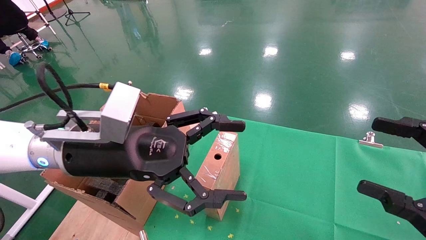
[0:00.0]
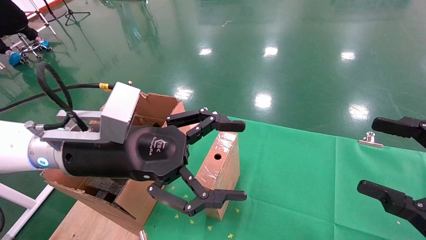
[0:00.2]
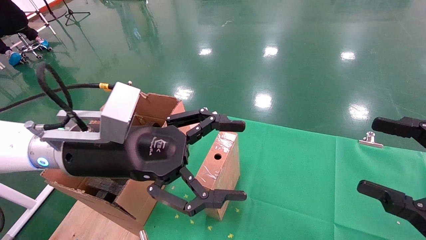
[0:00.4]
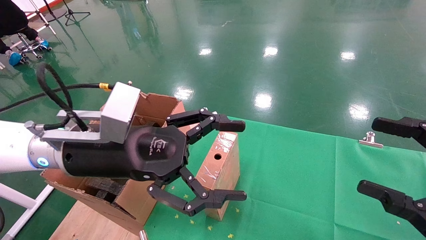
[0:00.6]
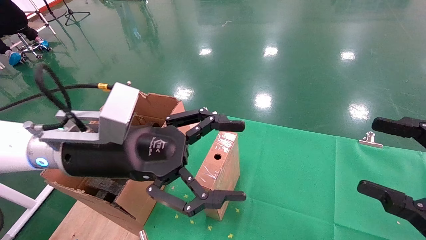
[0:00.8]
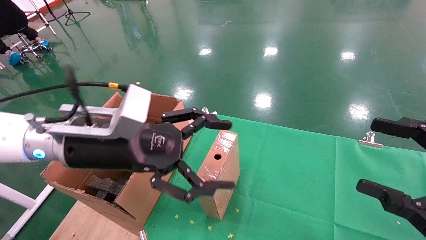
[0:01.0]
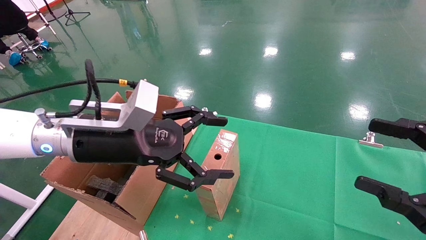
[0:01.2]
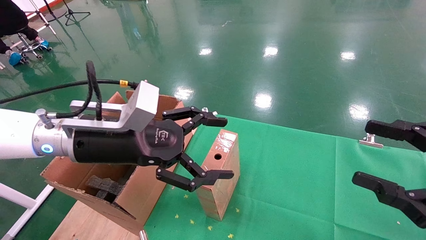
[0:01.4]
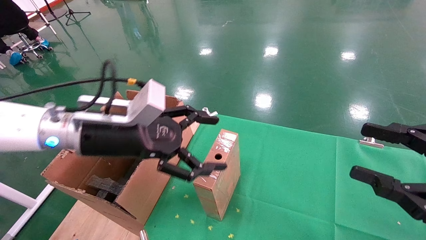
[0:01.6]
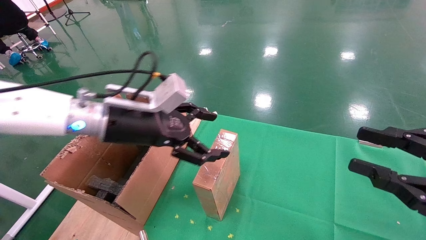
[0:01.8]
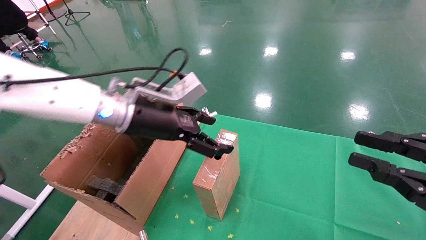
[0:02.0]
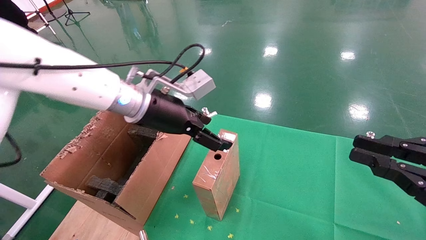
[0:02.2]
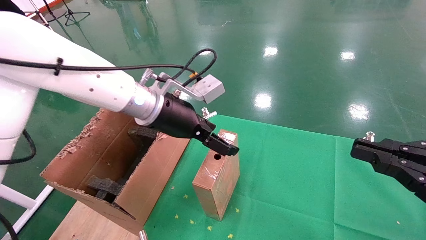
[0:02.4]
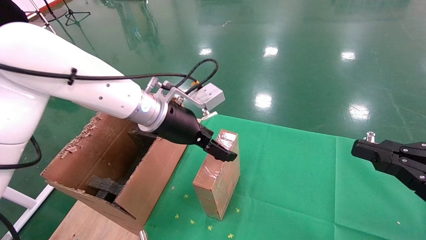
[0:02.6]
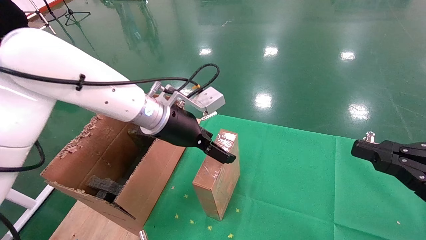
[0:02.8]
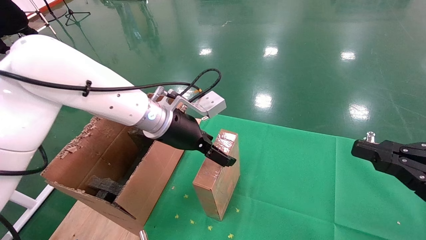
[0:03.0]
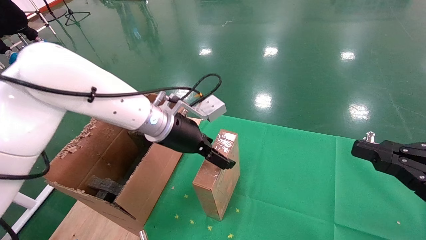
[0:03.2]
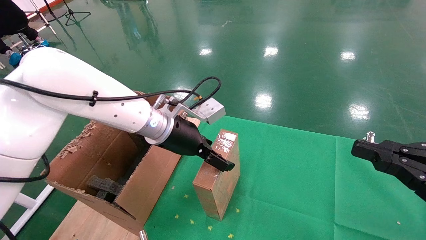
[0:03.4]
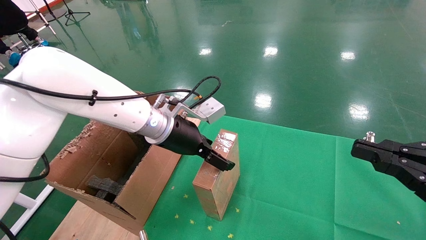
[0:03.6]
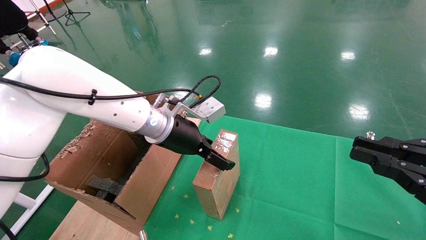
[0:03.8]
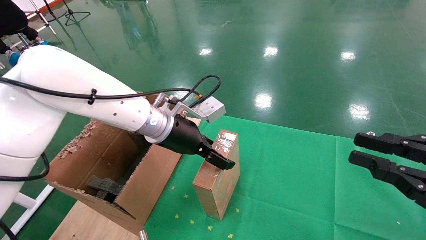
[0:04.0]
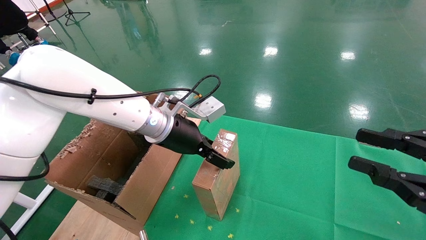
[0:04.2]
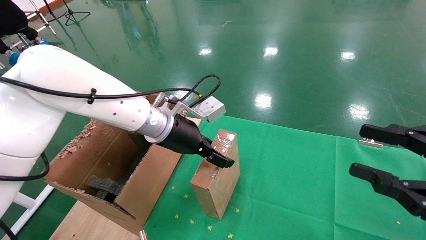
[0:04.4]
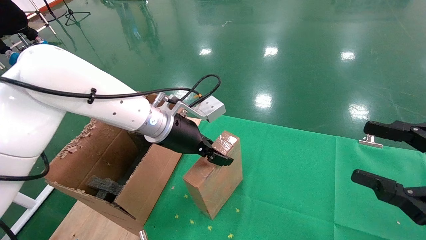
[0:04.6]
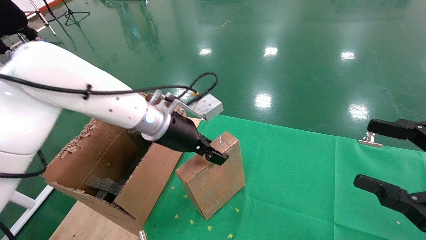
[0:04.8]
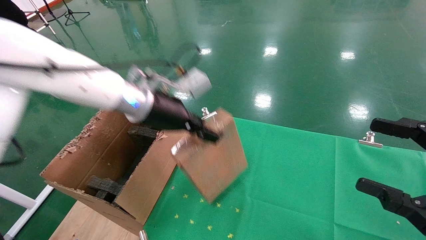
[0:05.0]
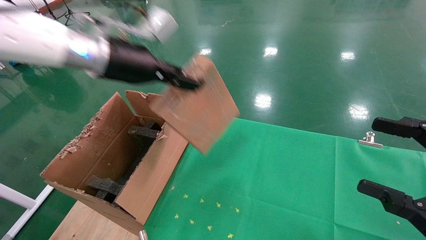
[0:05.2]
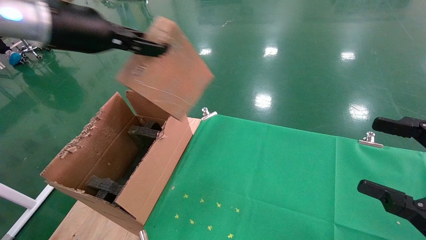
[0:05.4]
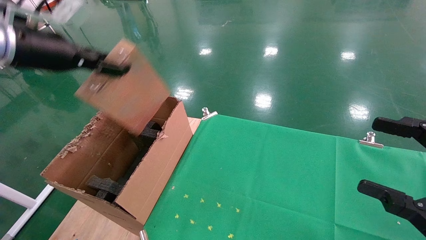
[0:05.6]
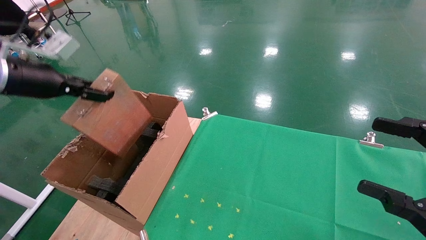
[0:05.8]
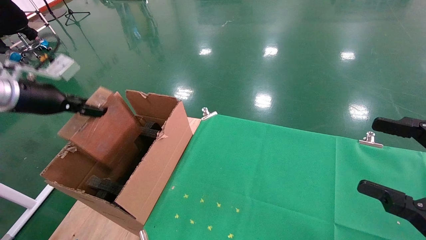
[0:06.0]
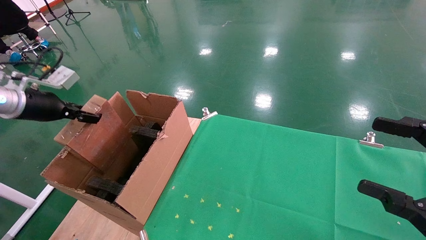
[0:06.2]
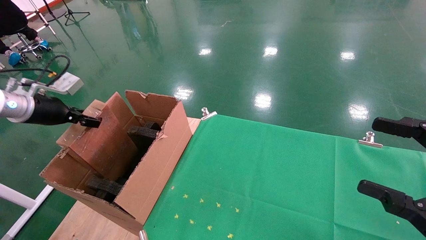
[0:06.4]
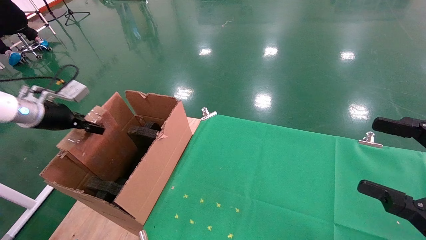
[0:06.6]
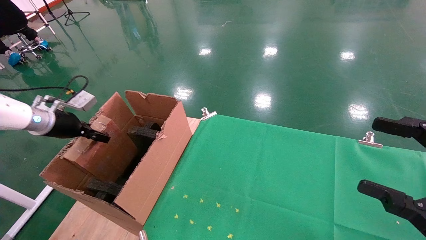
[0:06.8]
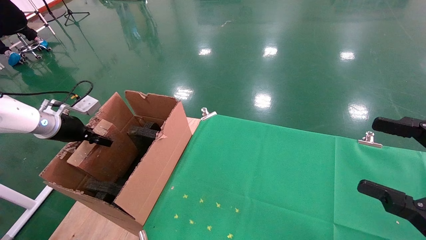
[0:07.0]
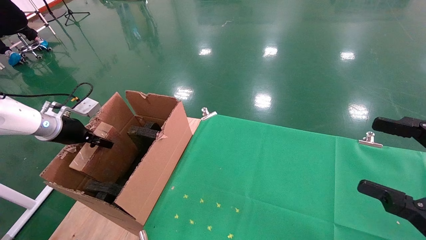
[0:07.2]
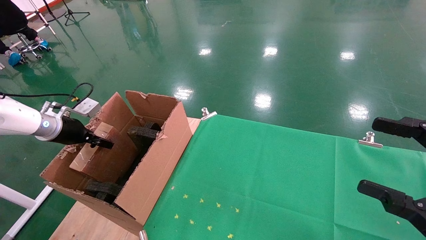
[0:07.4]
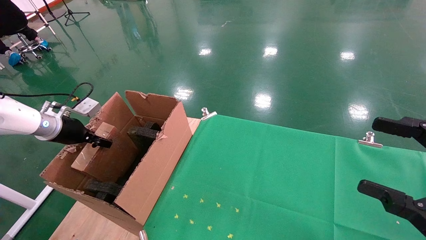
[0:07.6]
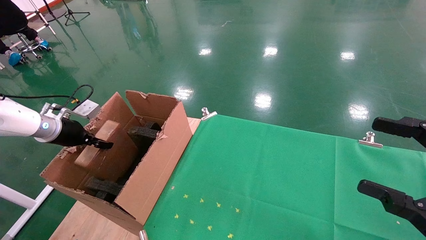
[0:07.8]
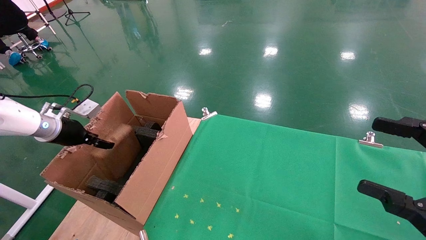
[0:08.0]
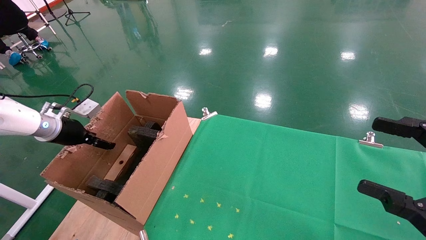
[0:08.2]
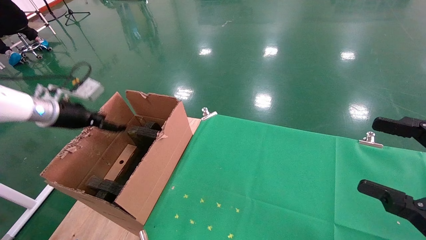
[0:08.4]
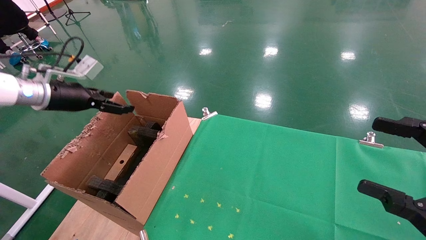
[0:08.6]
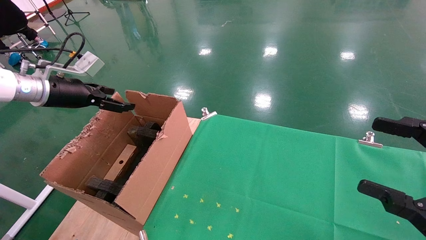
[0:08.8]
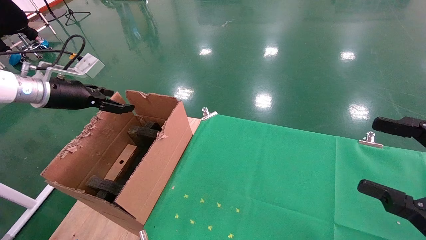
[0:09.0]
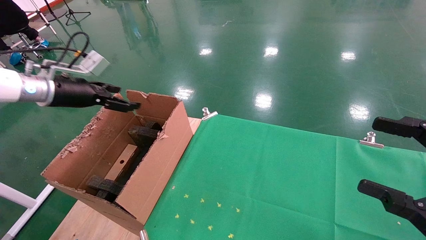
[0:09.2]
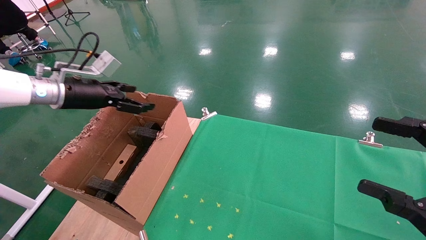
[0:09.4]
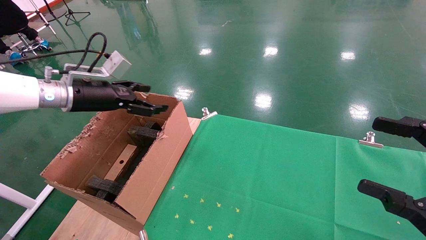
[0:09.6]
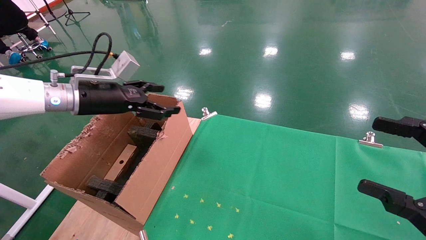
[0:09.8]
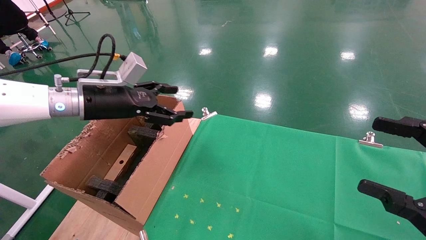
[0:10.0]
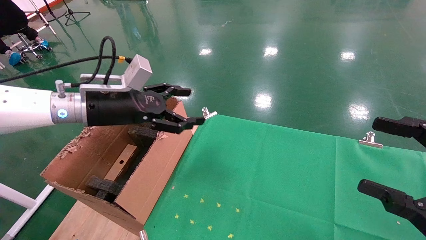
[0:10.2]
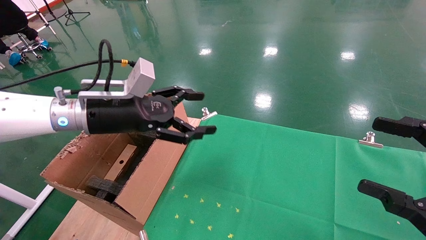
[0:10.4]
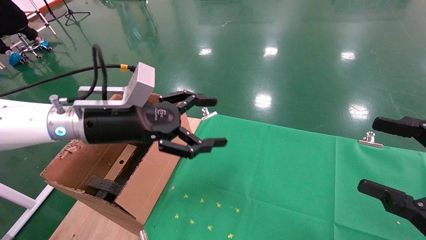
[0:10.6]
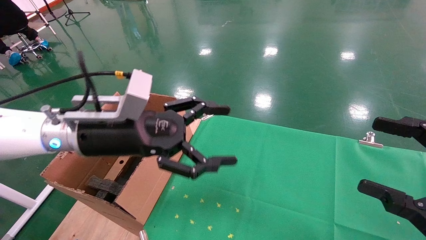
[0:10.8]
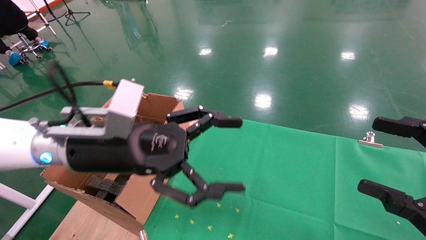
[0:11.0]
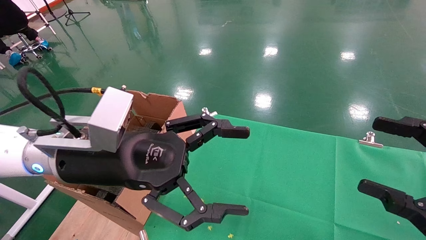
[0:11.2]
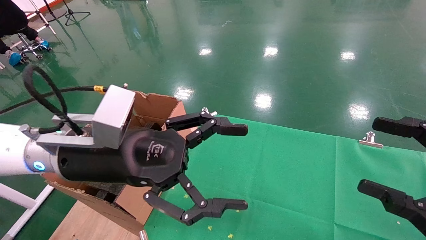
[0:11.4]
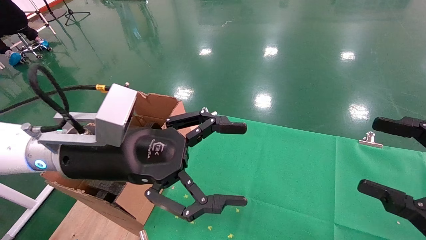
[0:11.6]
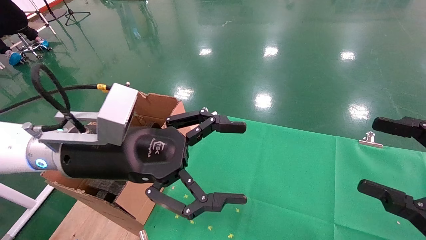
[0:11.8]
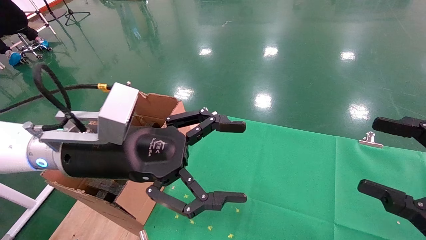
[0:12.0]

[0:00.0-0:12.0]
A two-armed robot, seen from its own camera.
Task of the whole recording: using a robotic arm to pick up a cardboard box and palace it the carton.
Step, 0:01.2 to 0:04.6: Pick up the mouse and the power cord paper box.
Step, 0:04.8 to 0:08.0: Place the mouse and the power cord paper box into the container.
0:00.0 to 0:01.6: The left gripper moves forward, some 5 cm.
0:01.6 to 0:03.0: The right gripper closes up. The left gripper heads forward and to the right, covering some 10 cm.
0:03.0 to 0:04.4: The right gripper opens up.
0:04.4 to 0:06.0: The left gripper goes about 30 cm to the left, and closes; the right gripper opens.
0:06.0 to 0:07.6: The left gripper goes roughly 15 cm downward and forward.
0:07.6 to 0:09.0: The left gripper heads upward and to the right, covering about 10 cm, and opens up.
0:09.0 to 0:10.4: The left gripper travels to the right by some 15 cm.
0:10.4 to 0:12.0: The left gripper is displaced backward and to the right by approximately 10 cm.

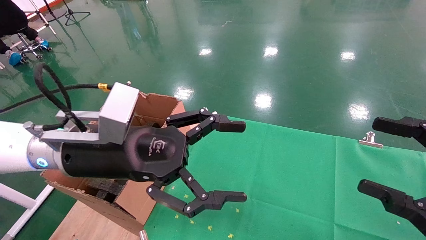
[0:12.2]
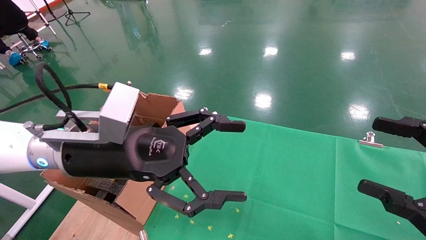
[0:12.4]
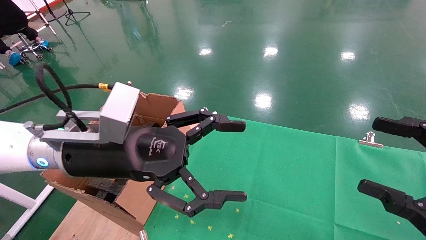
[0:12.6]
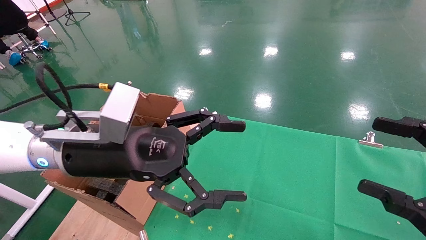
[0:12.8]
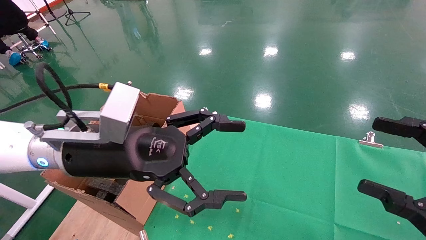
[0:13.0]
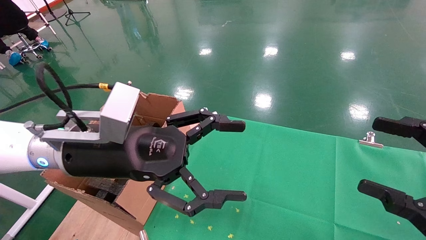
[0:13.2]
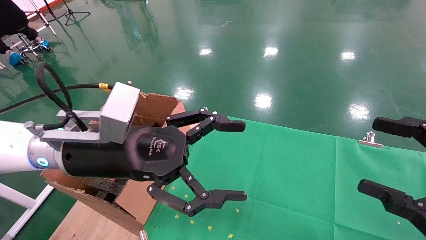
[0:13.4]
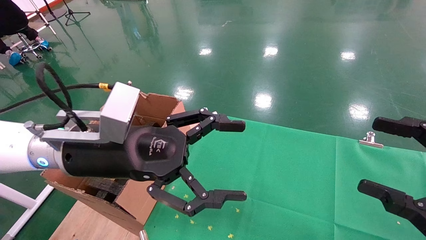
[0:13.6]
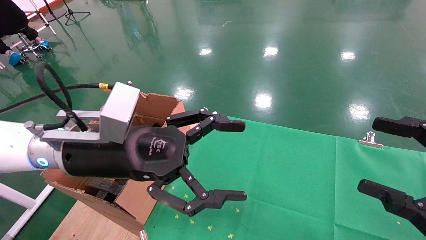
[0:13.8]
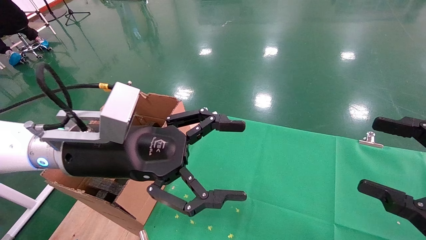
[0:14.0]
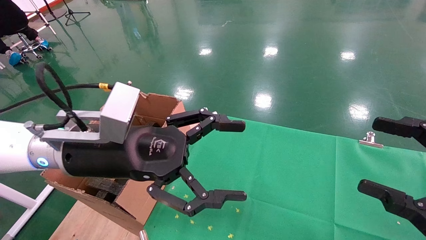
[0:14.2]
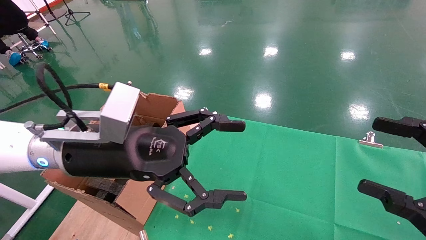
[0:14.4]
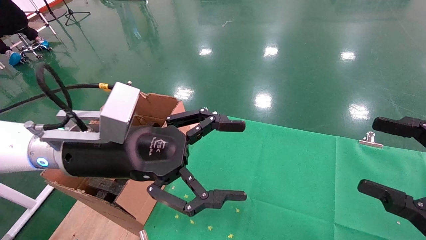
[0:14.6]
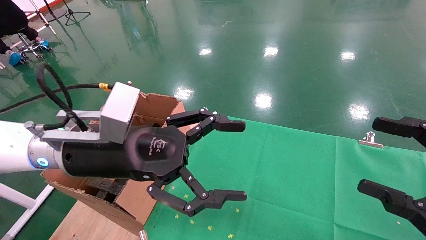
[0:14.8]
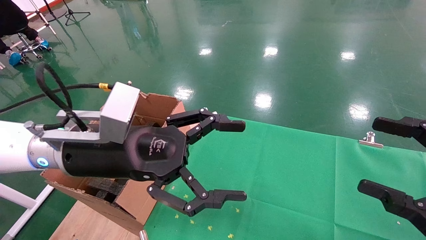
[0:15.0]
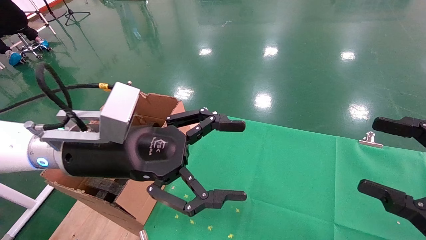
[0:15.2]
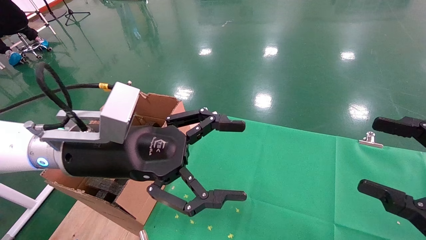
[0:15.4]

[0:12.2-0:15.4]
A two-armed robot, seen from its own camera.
Task of the whole recording: using a robotic arm to pick up a cardboard box and palace it the carton.
0:12.2 to 0:15.4: Neither gripper changes place.
